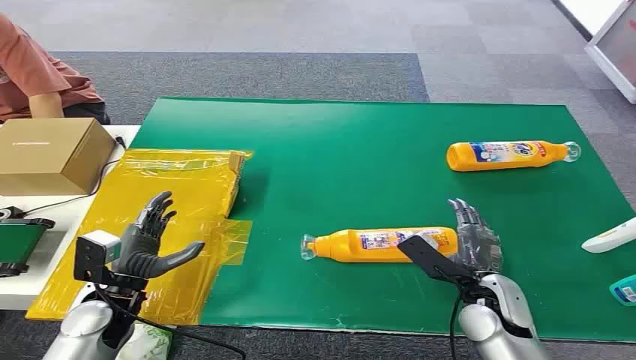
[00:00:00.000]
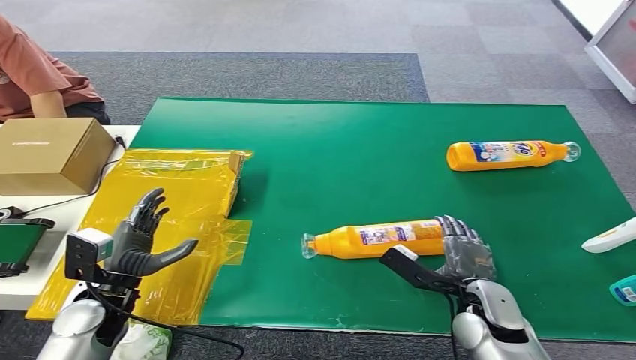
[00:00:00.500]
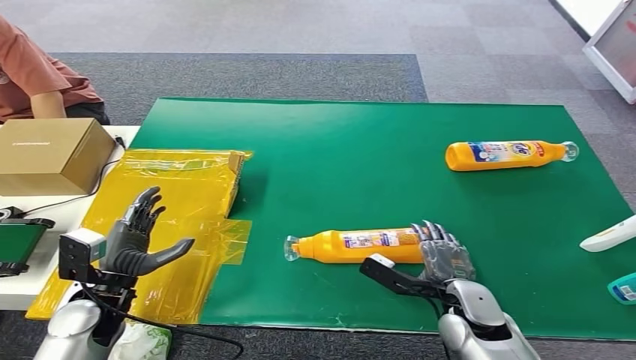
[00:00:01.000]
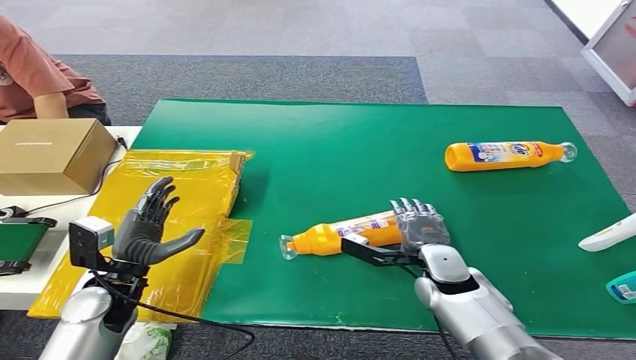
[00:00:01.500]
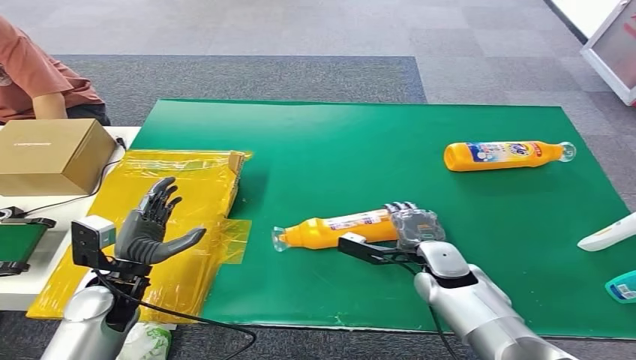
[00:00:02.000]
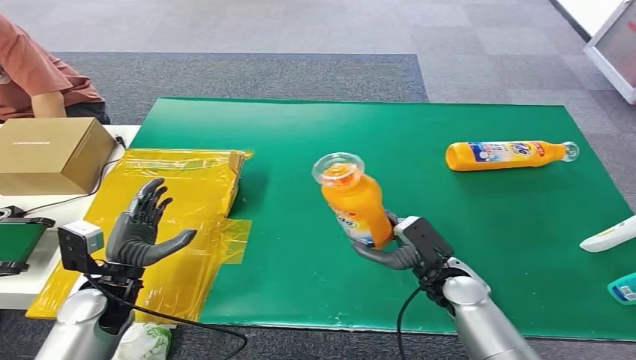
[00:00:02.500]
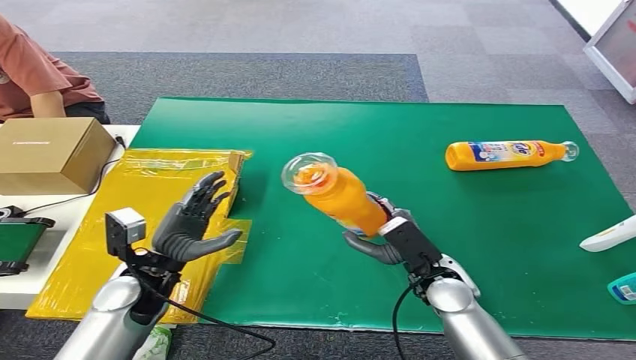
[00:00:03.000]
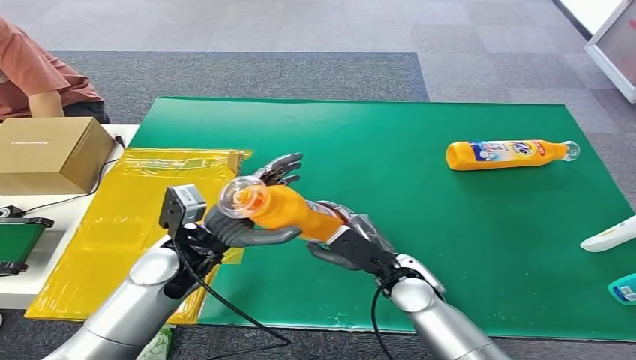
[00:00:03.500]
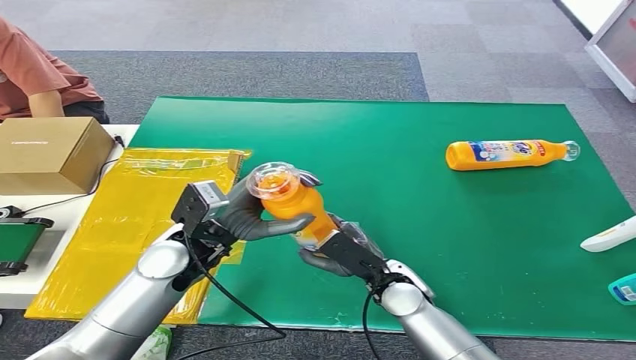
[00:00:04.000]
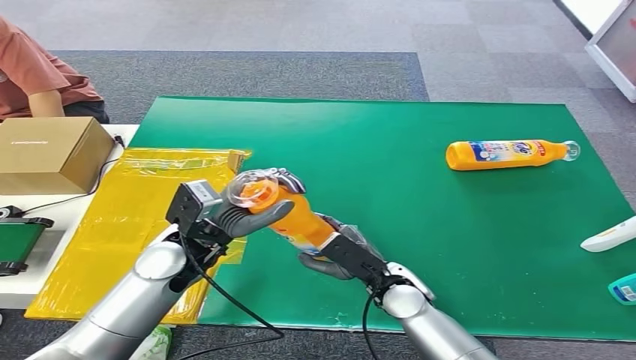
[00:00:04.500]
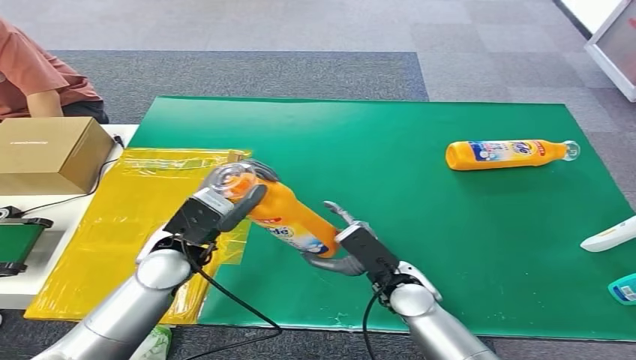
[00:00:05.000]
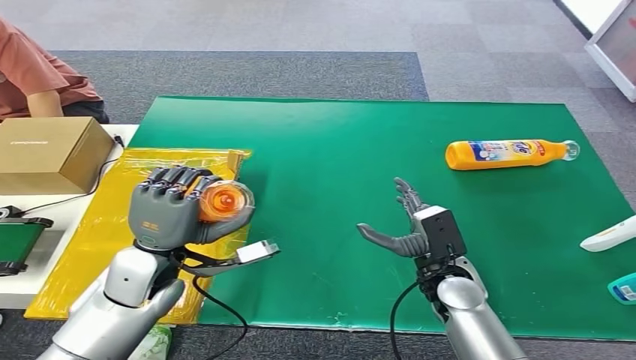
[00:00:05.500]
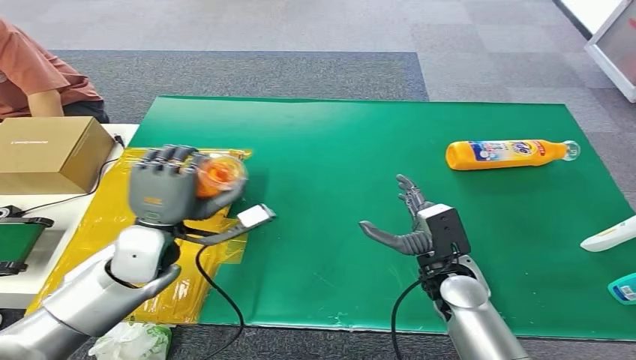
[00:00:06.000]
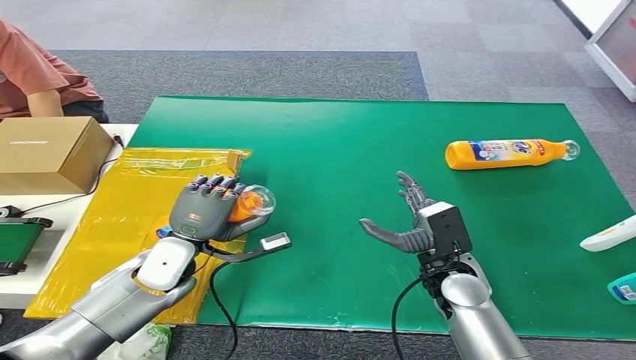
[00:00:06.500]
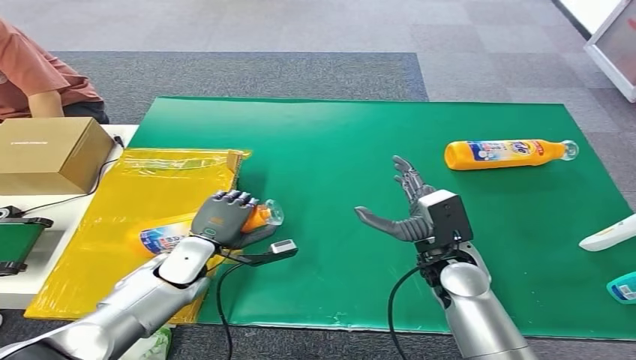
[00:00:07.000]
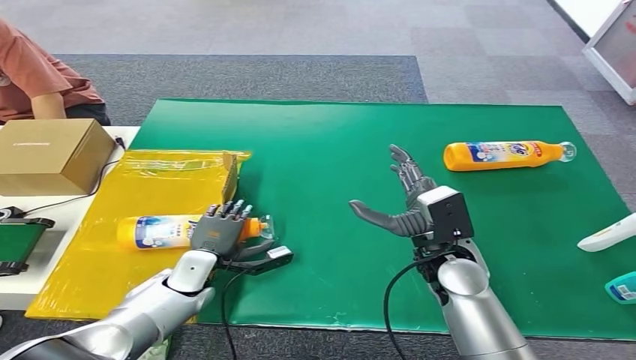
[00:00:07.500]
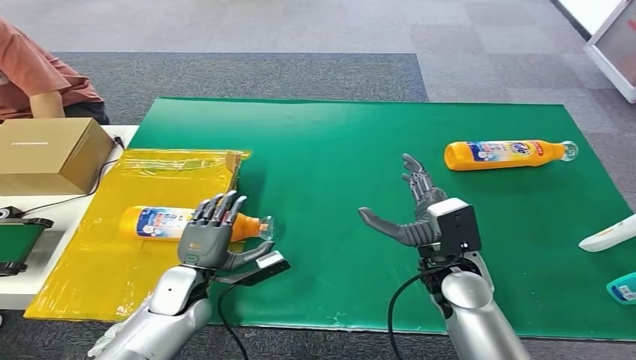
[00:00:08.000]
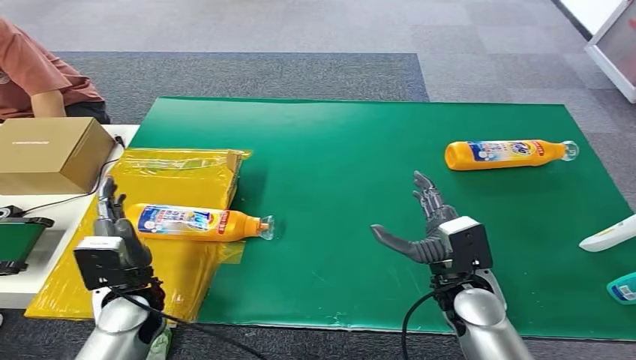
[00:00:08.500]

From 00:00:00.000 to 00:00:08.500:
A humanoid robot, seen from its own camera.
Step, from 00:00:00.000 to 00:00:02.000: Pick up the bottle from the table.
Step, from 00:00:02.500 to 00:00:08.500: Turn the bottle to the front side.
From 00:00:04.000 to 00:00:06.500: The left hand shifts about 10 cm downward and to the left, while the right hand shifts roughly 5 cm to the right.
From 00:00:06.500 to 00:00:08.500: The left hand travels backward by some 5 cm, and goes downward and returns, roughly 10 cm each way.
